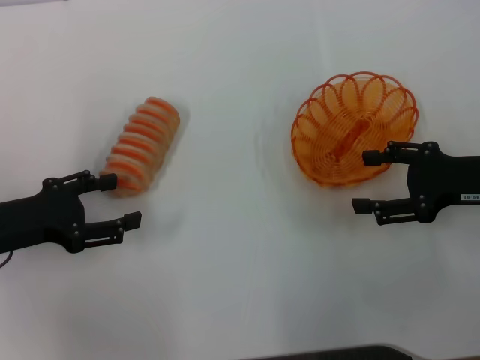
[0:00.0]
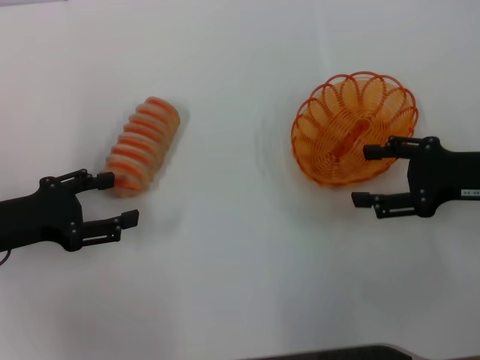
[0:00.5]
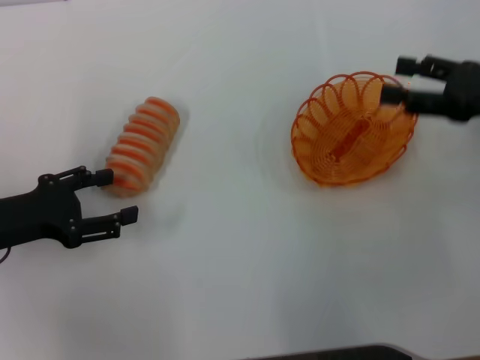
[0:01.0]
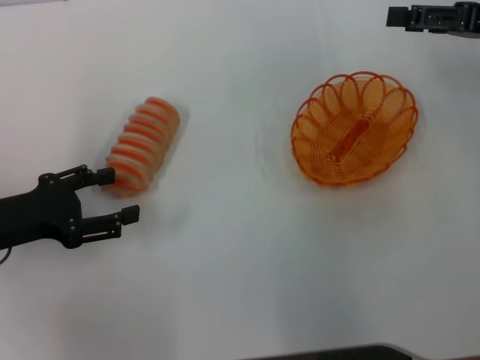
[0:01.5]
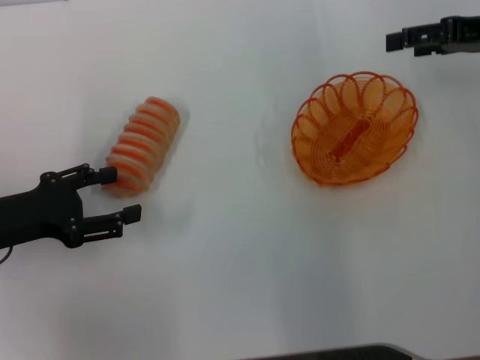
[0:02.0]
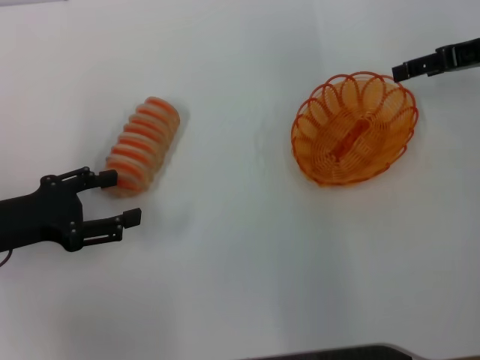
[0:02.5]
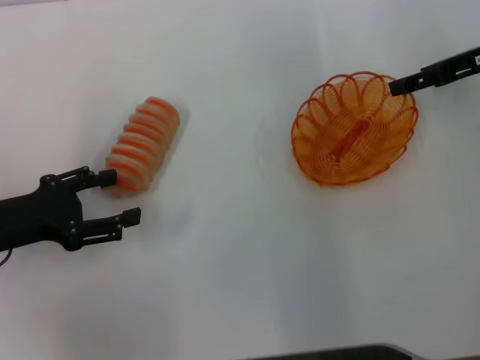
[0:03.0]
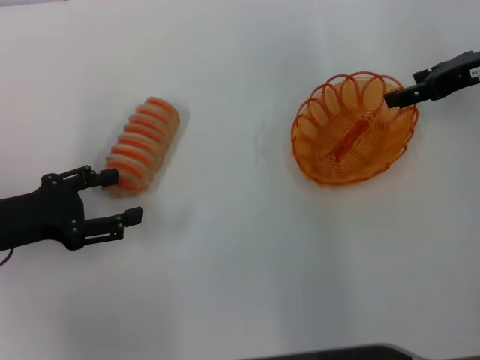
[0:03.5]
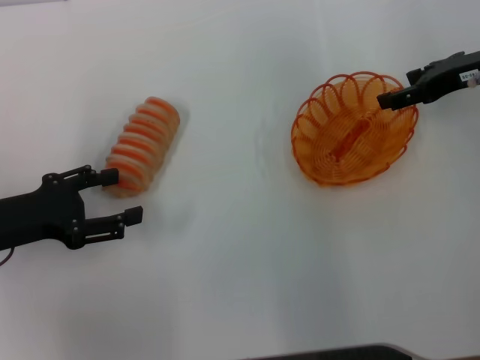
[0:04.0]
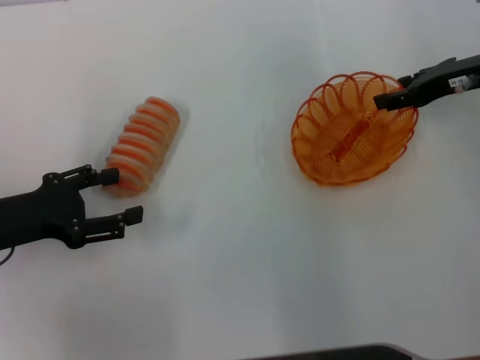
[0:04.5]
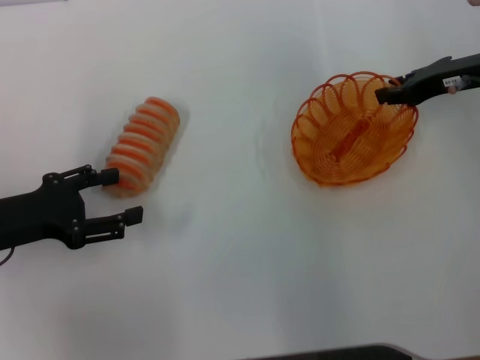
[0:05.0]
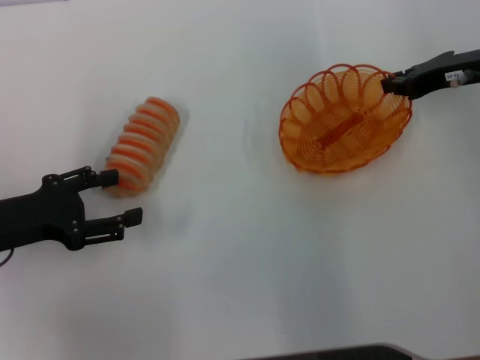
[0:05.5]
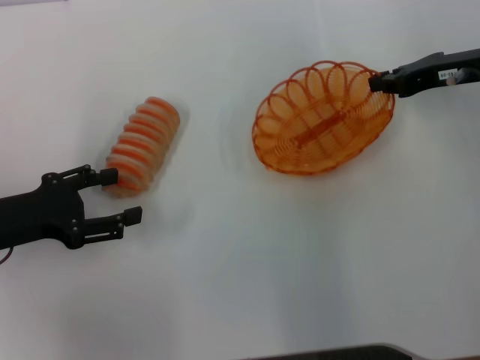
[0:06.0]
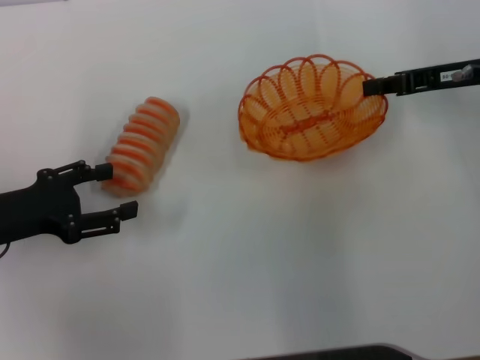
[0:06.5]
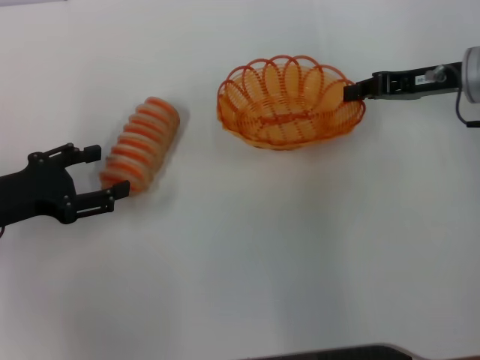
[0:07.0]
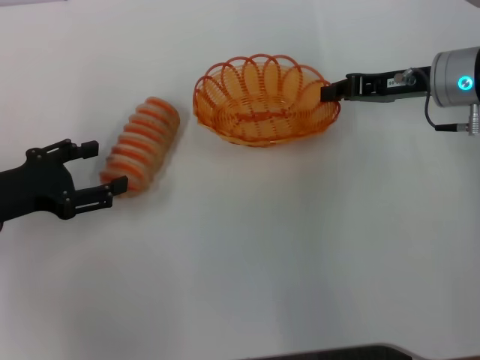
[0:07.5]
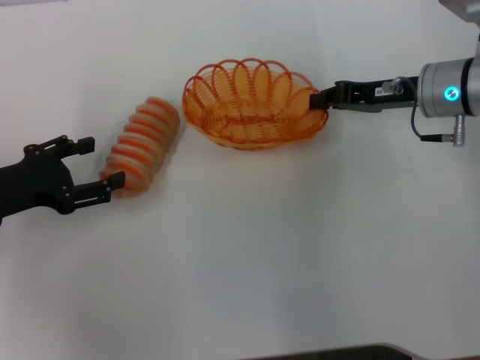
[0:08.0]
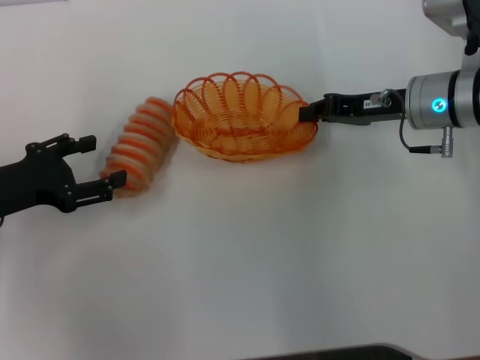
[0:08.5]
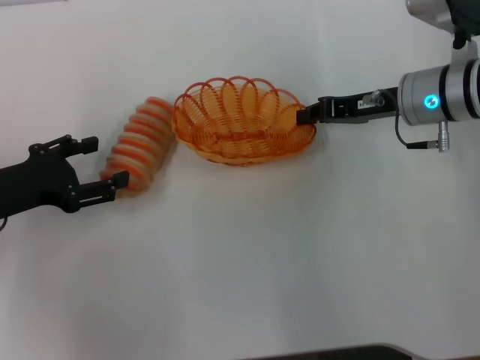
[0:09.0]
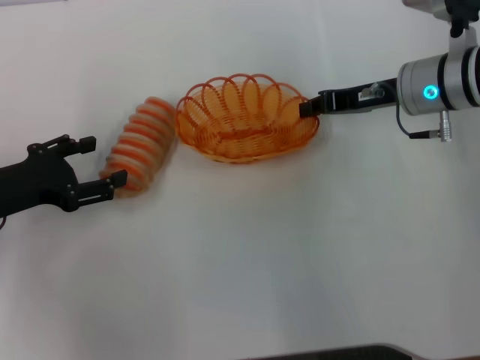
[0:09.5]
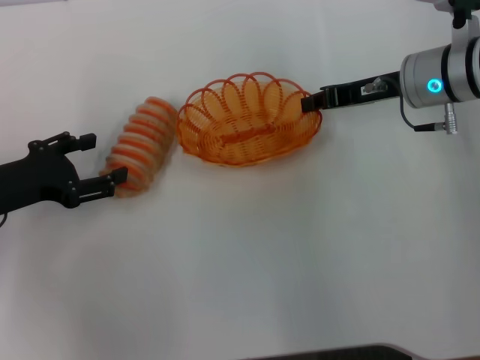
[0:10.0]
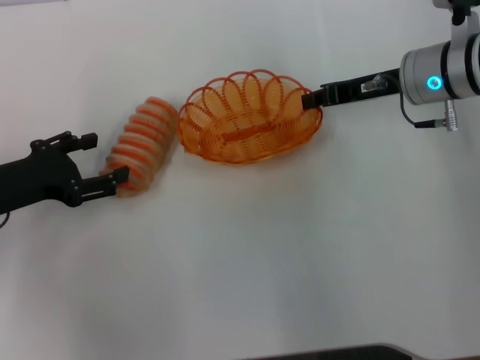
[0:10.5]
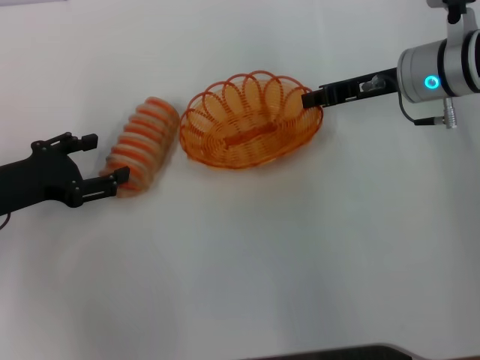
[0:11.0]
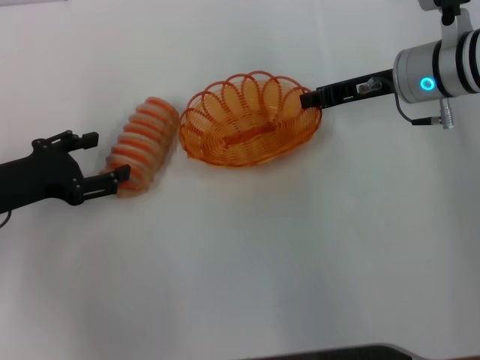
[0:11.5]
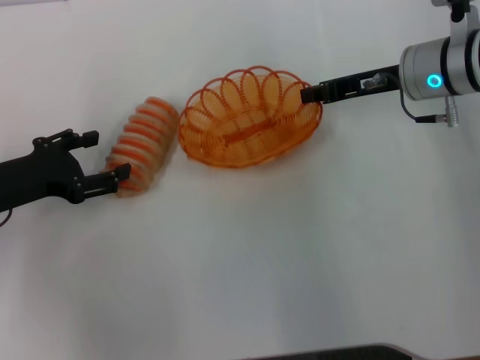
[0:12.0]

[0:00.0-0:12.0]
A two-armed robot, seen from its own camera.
Step, 0.0 to 6.0 s: Pick up the basket with the right gripper.
0.0 to 2.0 s: The right gripper goes approximately 15 cm forward and upward.
4.0 to 6.0 s: The right gripper closes up.
6.0 to 8.0 s: The right gripper moves to the left, about 5 cm.
8.0 to 12.0 s: The grippers make only small movements.

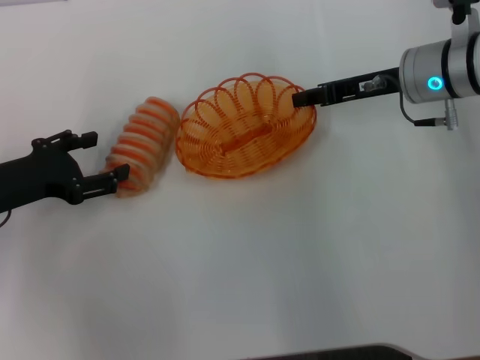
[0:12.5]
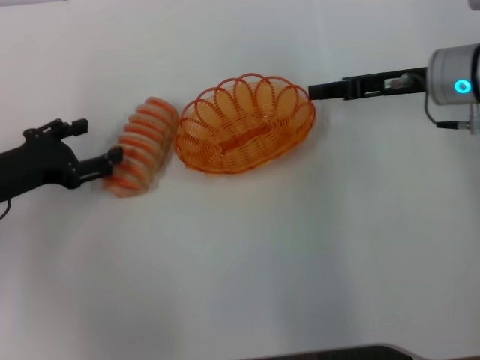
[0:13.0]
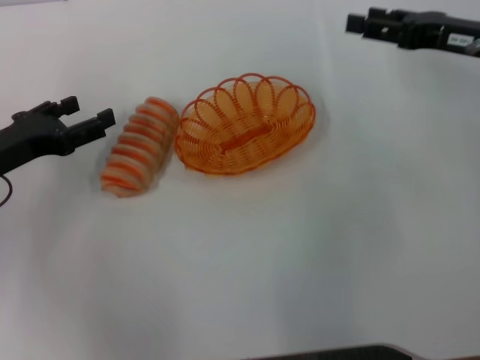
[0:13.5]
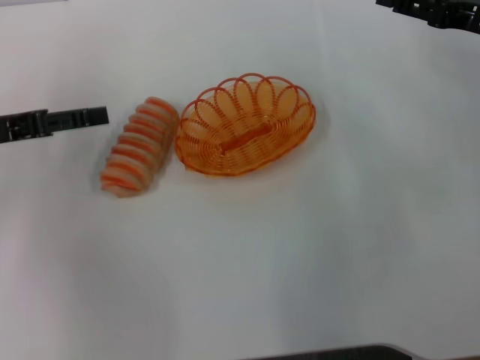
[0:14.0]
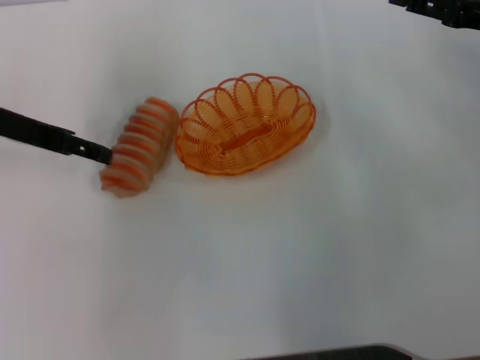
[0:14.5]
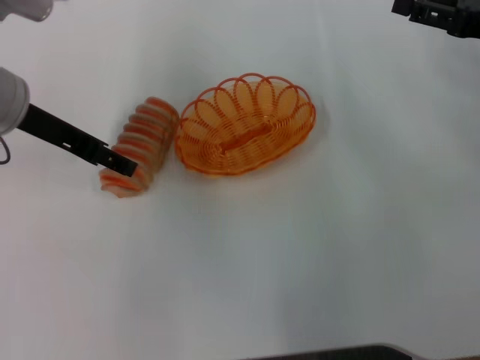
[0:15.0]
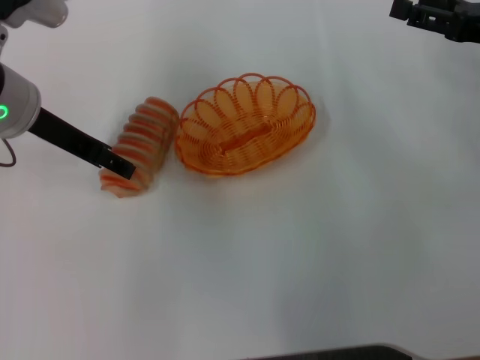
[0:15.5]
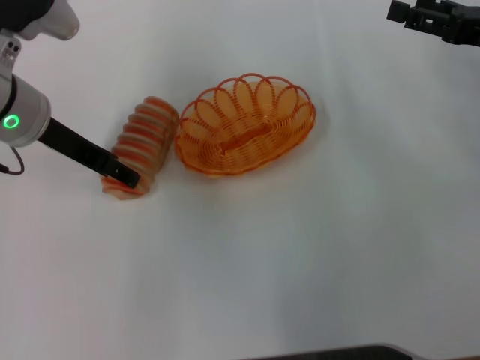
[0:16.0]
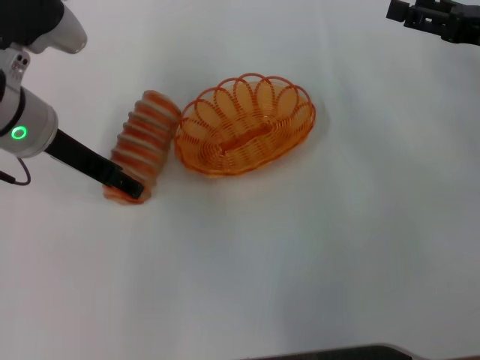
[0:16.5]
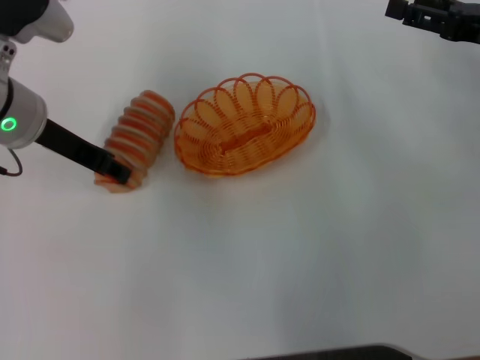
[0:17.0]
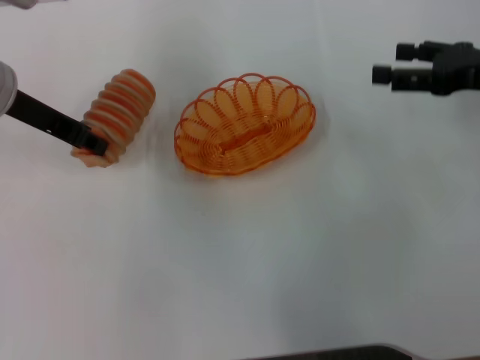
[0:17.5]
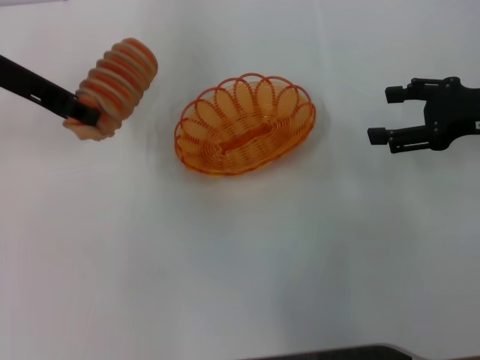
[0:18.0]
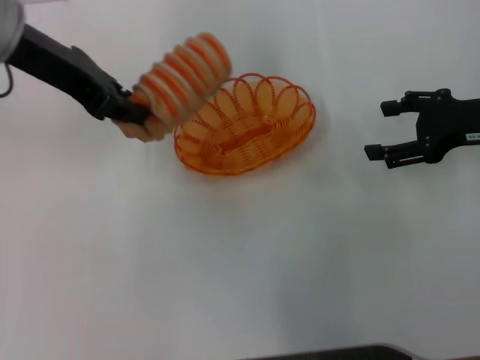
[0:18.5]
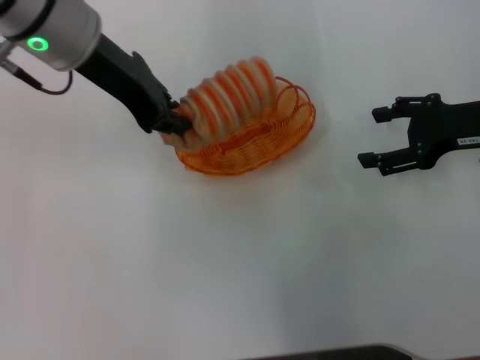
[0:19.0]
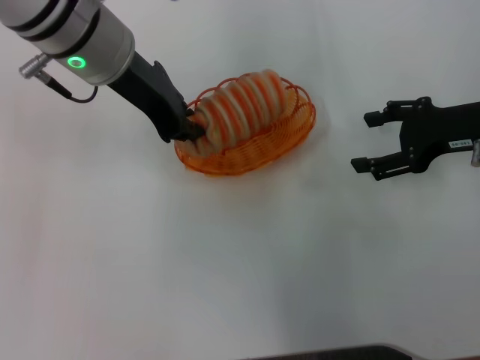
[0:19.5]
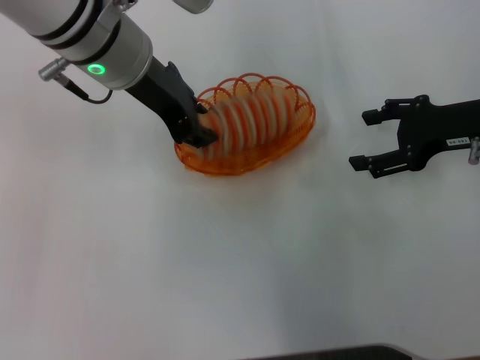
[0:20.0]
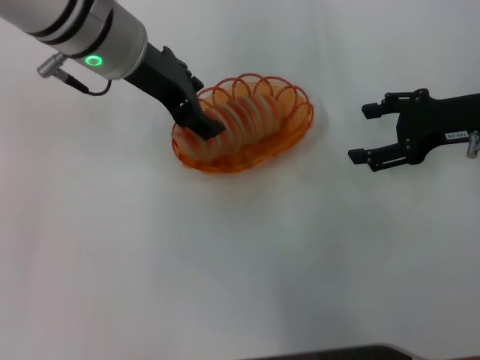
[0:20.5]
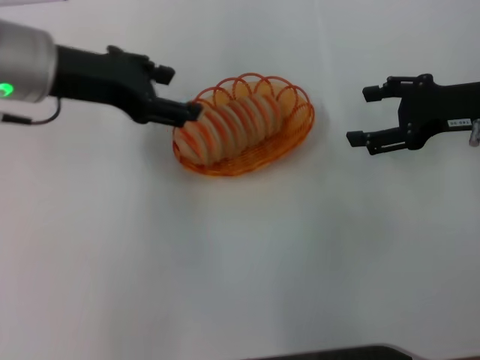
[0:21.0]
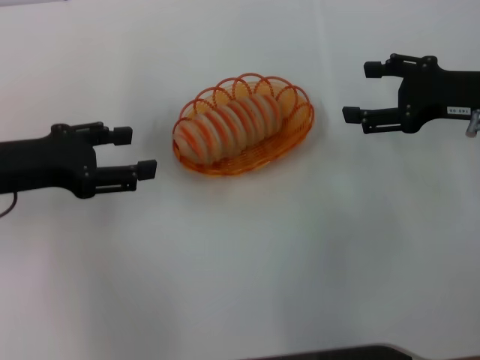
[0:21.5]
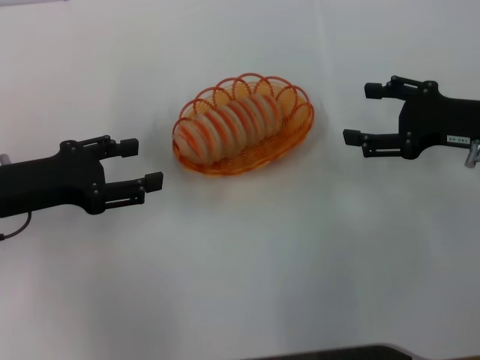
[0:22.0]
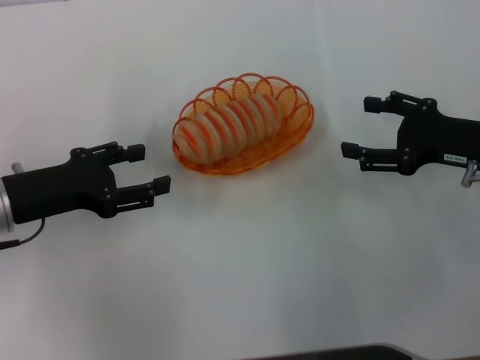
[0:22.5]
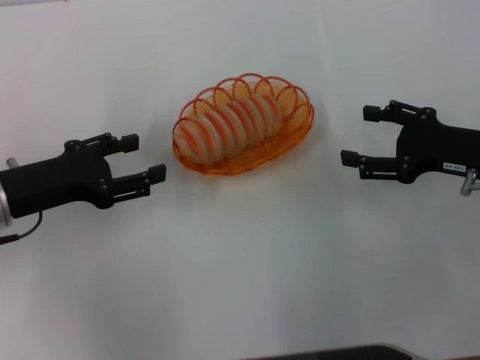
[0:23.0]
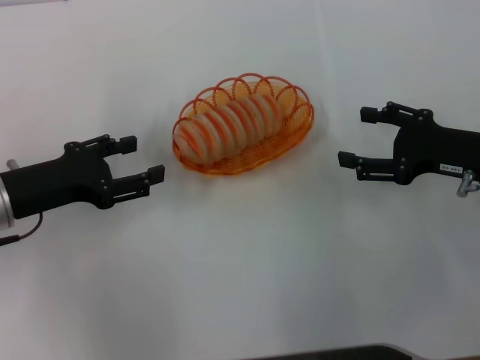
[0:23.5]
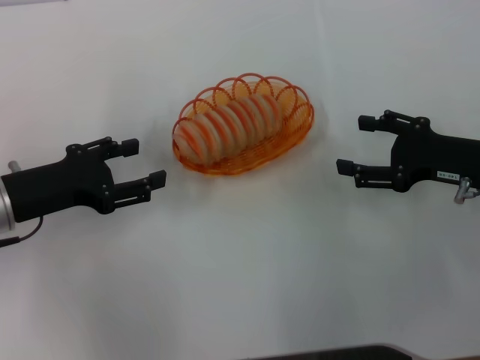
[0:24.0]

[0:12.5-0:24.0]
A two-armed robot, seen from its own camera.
Step, 13.5 to 17.5 s: Pick up the long bread with the left gripper.
Step, 18.0 to 20.5 s: Place the long bread into the basket with the left gripper.
12.5 to 14.5 s: The left gripper moves upward and forward, about 10 cm, while the right gripper goes about 10 cm to the right, and opens its fingers.
14.5 to 16.5 s: The left gripper heads to the right, covering approximately 5 cm.
16.5 to 18.5 s: The left gripper shifts about 10 cm upward, and closes.
18.5 to 20.0 s: The left gripper moves to the right, roughly 10 cm.
20.0 to 22.0 s: The left gripper heads to the left, downward and backward, covering some 20 cm, and opens.
22.0 to 24.0 s: There are only small adjustments of the grippers.

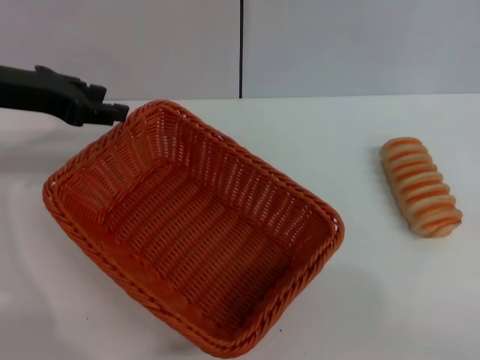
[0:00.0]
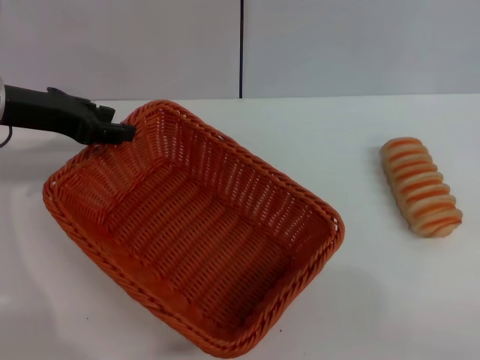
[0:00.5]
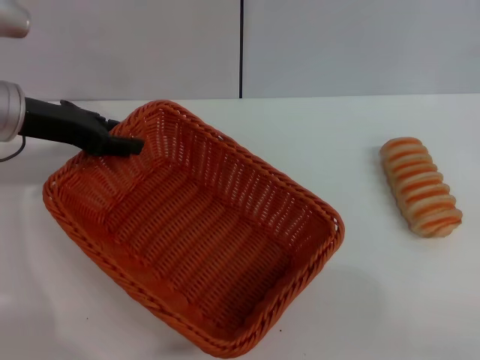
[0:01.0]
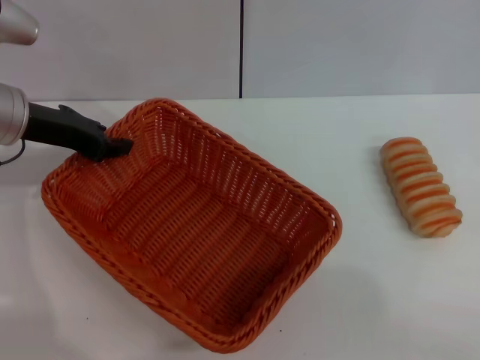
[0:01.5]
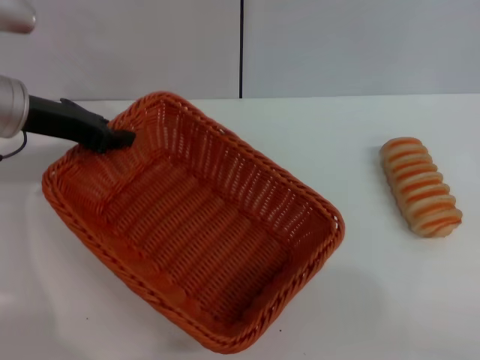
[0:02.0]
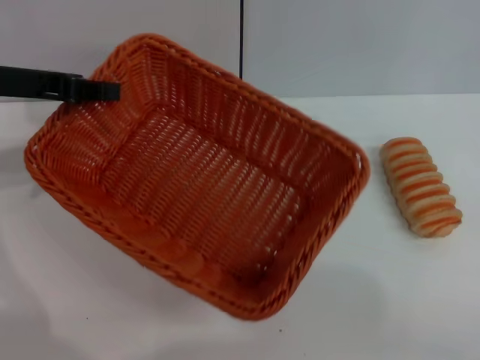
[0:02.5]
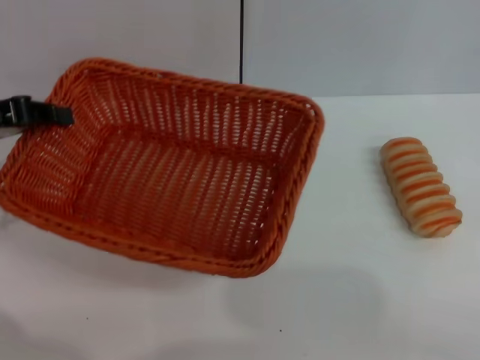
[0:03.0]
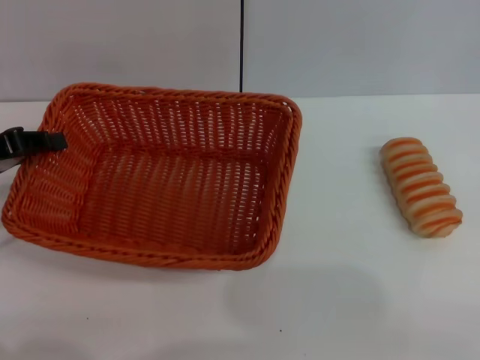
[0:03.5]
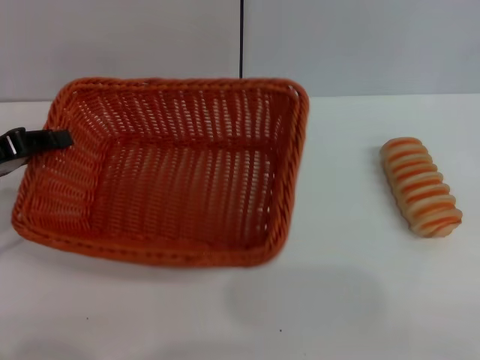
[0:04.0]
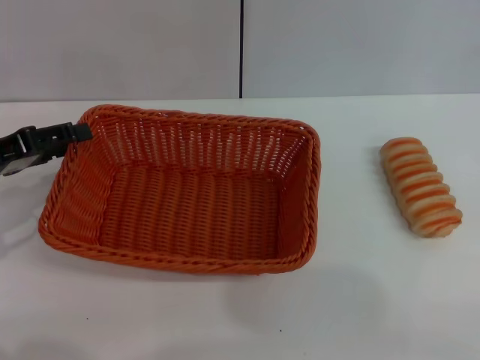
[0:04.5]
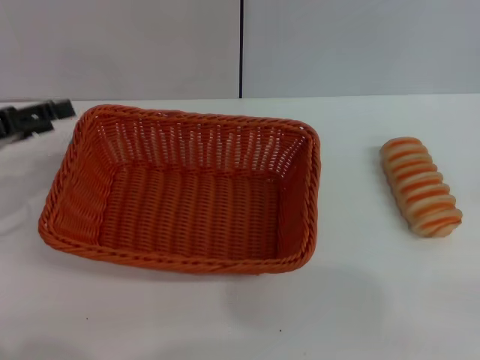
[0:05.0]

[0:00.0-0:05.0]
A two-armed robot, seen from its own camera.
Step, 0.0 to 3.0 s: Pick up the light basket with the left gripper.
0.0 to 2.5 s: The left gripper closes up.
2.5 to 5.0 s: The left gripper is displaced downward, to the left and backward by about 10 cm, and opens its fingers.
